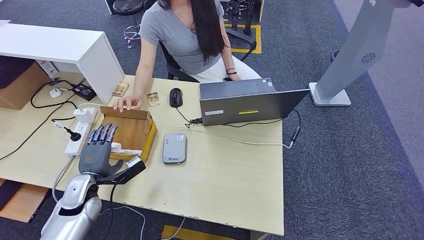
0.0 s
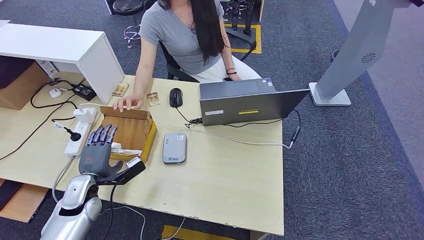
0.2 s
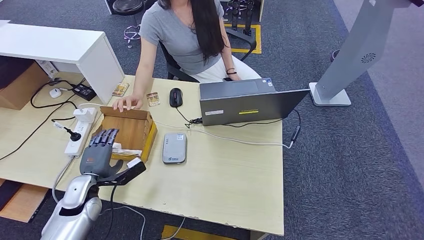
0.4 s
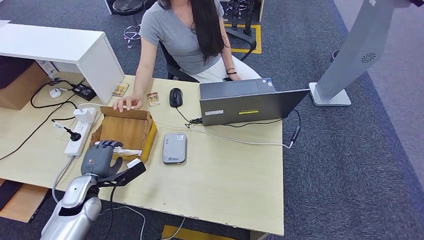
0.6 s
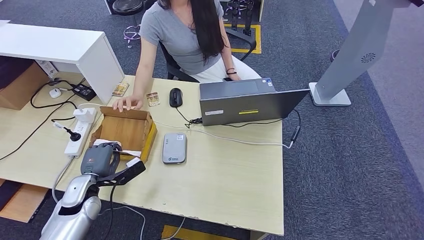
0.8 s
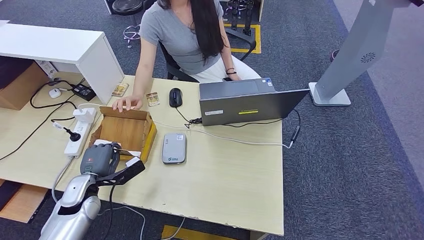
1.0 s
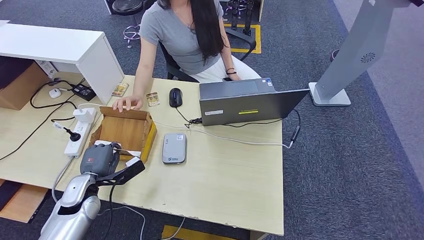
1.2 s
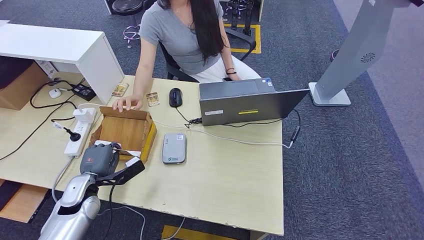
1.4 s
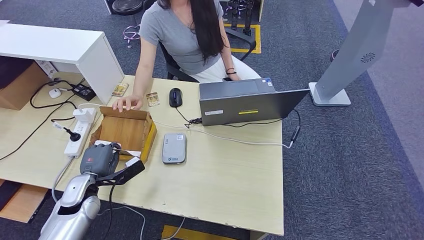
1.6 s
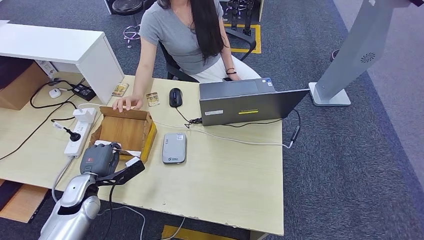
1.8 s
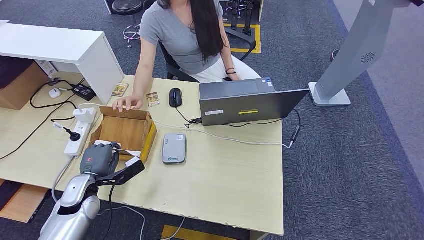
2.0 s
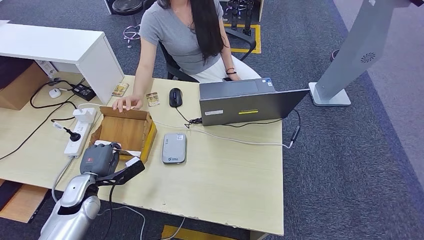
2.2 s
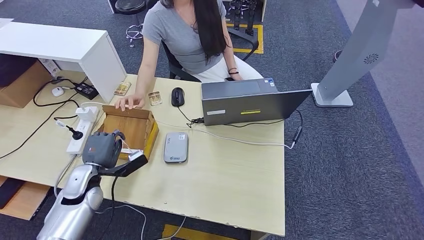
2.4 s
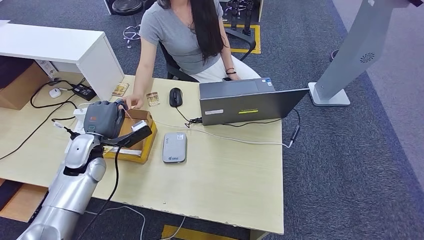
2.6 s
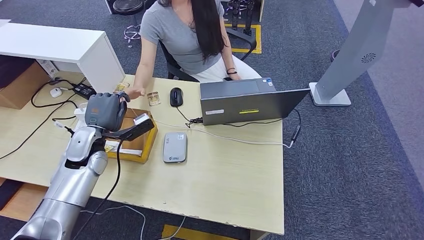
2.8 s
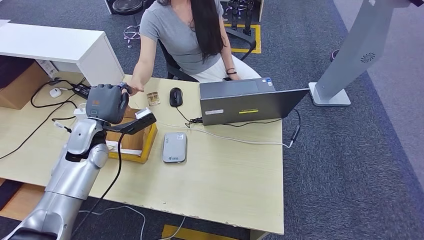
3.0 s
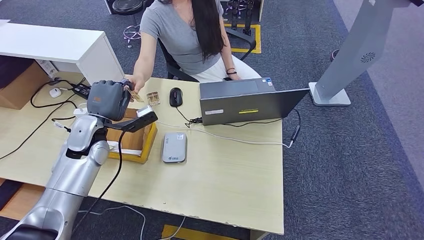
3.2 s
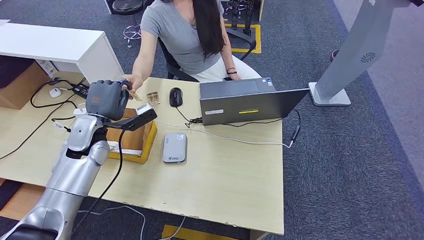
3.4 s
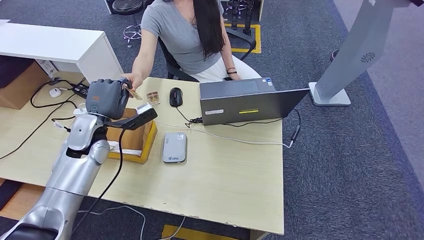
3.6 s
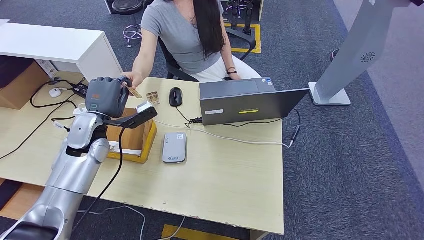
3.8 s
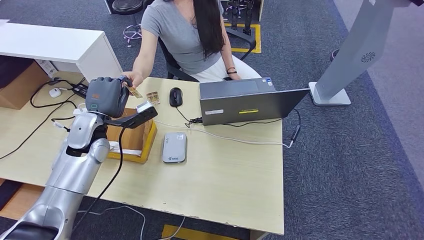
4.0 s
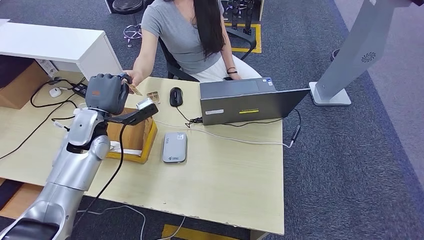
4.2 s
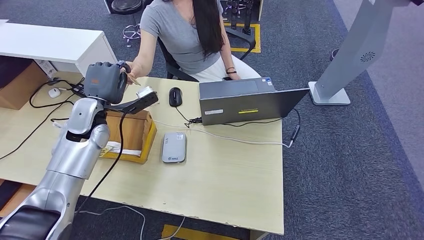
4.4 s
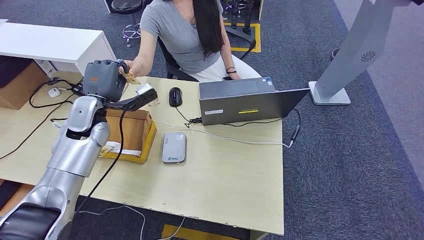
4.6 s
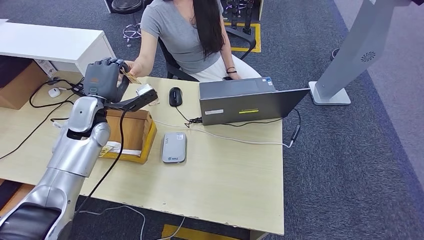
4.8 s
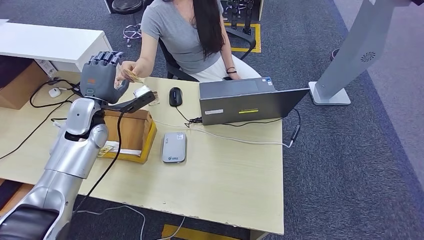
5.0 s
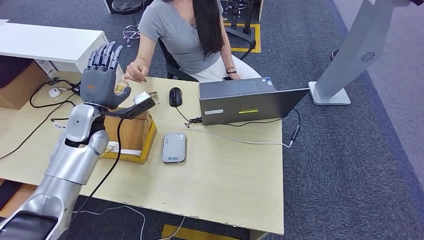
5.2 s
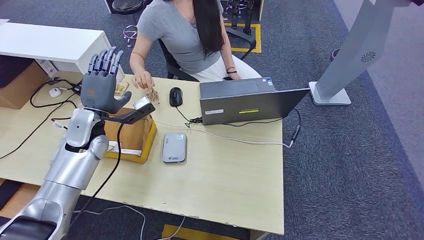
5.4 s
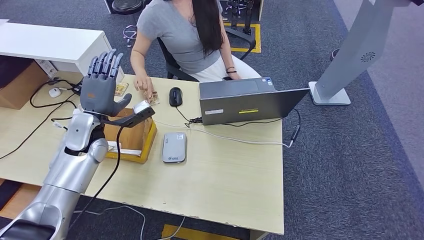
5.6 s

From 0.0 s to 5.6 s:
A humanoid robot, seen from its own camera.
Step, from 0.0 s to 2.4 s: Pick up the room key from the key card box.
Step, from 2.8 s to 5.6 s: Hand the room key to the person.
From 0.0 s to 1.4 s: The hands stay close to where they were, moving slightly.
From 1.4 s to 2.8 s: The left hand shifts approximately 15 cm upward and forward.
From 2.8 s to 4.2 s: The left hand shifts by some 5 cm.
From 4.2 s to 5.6 s: The hands stay close to where they were, moving slightly.
